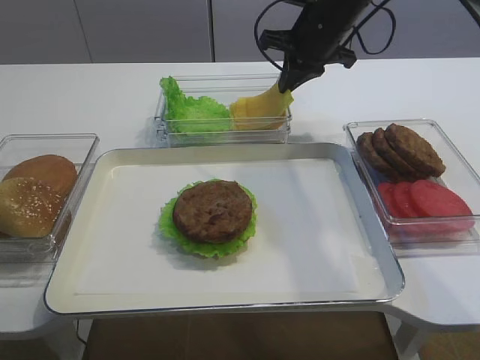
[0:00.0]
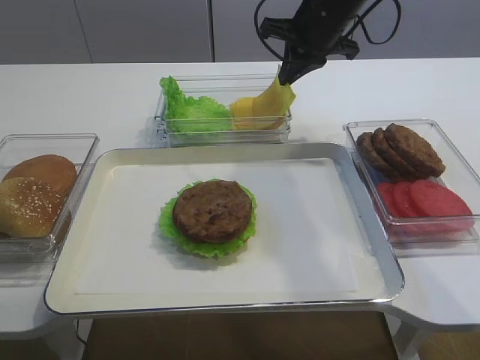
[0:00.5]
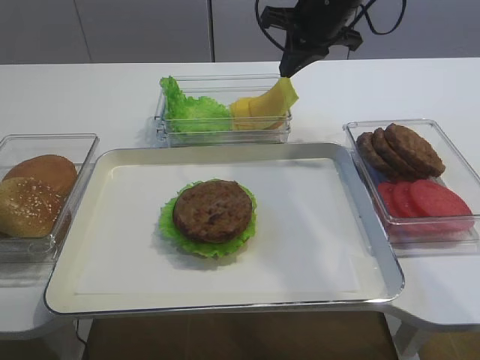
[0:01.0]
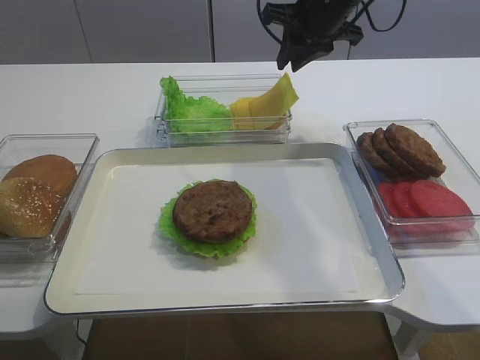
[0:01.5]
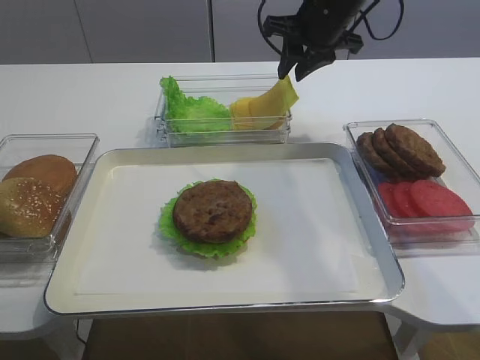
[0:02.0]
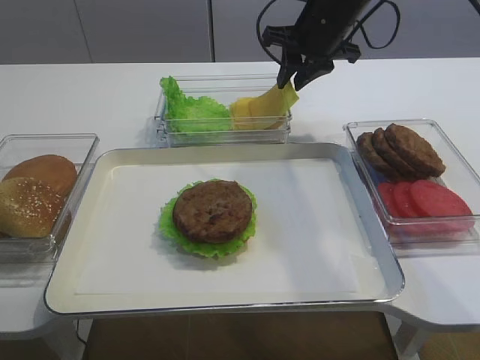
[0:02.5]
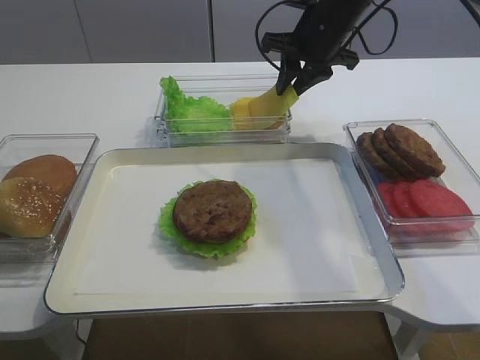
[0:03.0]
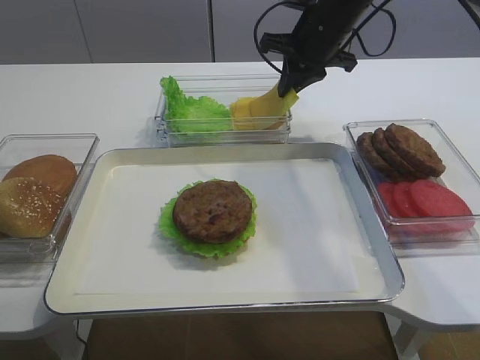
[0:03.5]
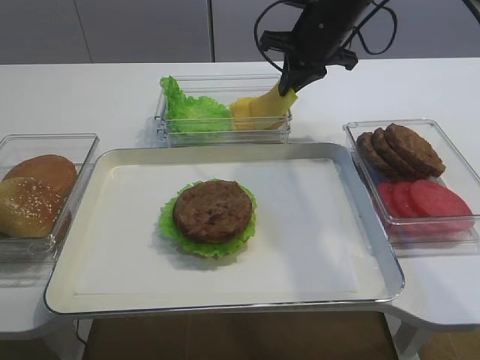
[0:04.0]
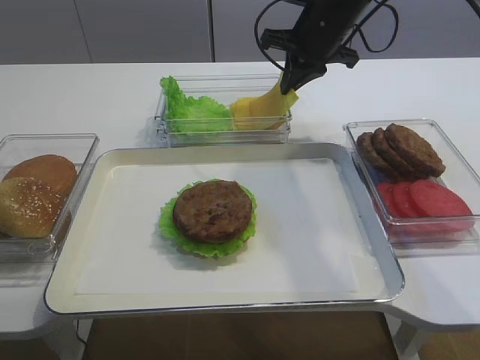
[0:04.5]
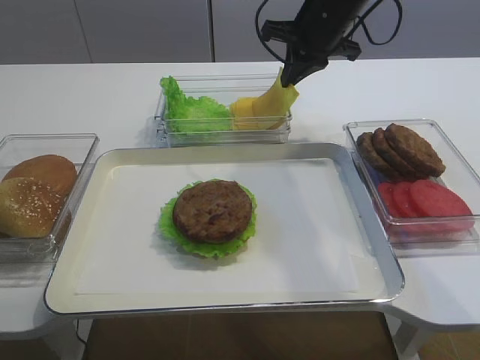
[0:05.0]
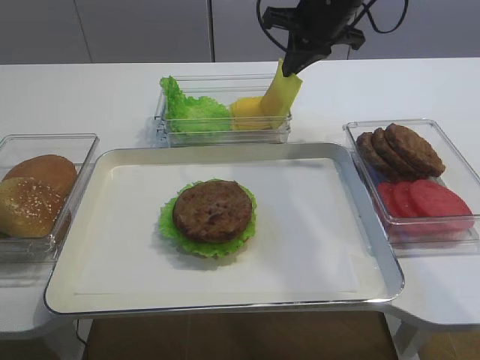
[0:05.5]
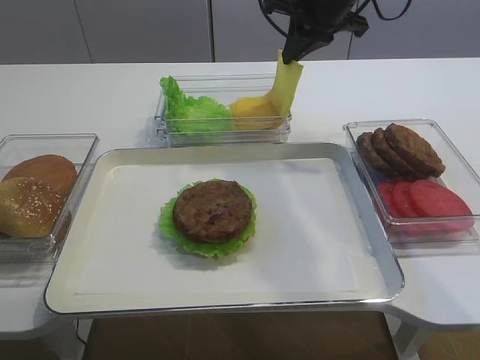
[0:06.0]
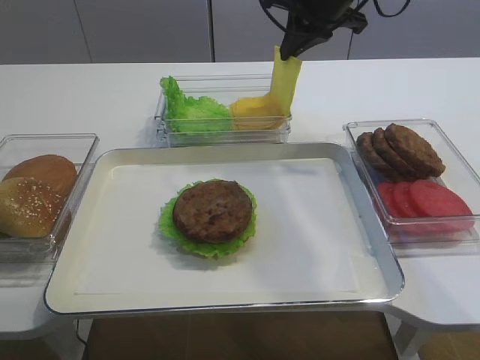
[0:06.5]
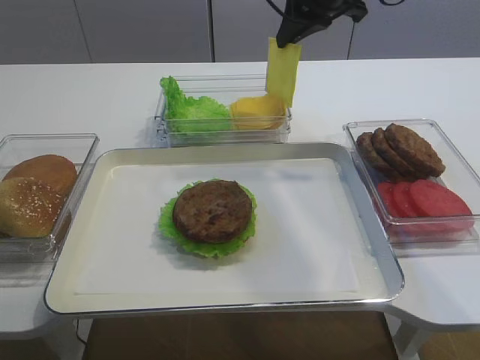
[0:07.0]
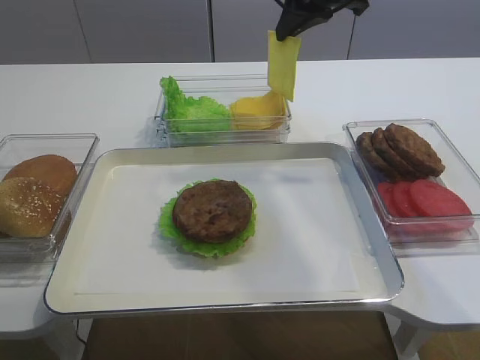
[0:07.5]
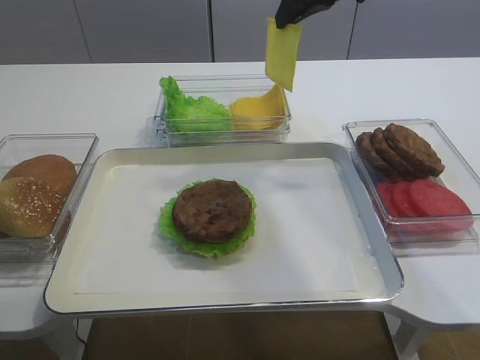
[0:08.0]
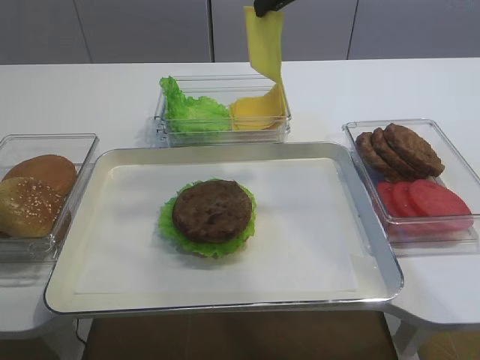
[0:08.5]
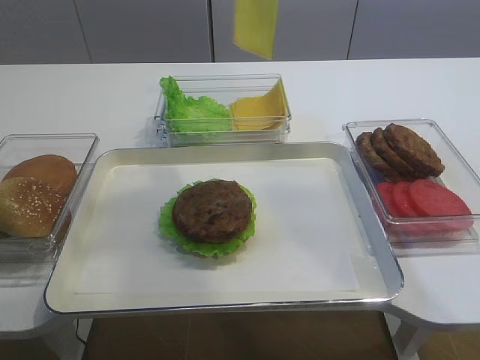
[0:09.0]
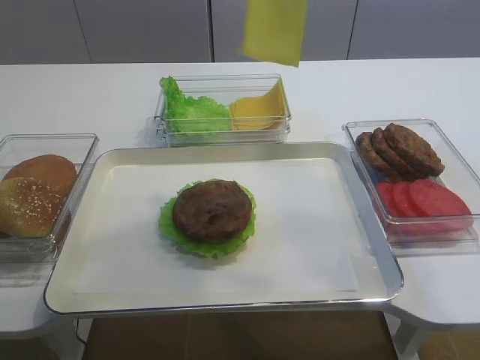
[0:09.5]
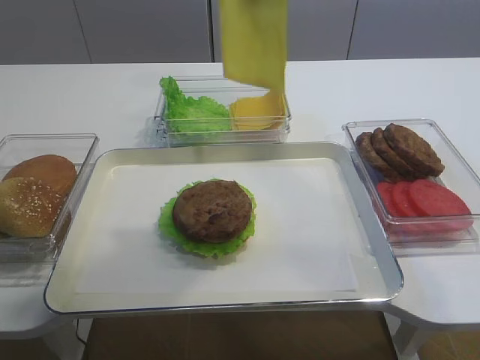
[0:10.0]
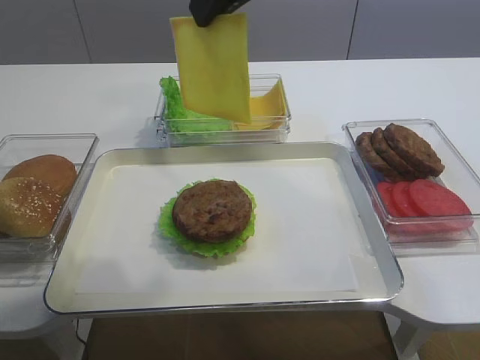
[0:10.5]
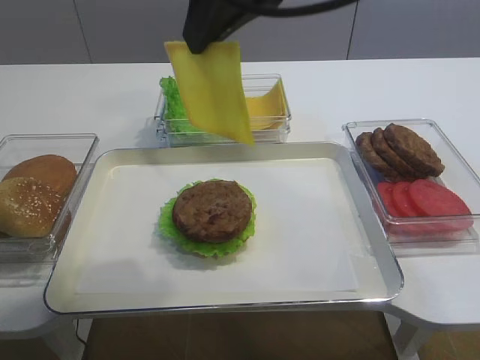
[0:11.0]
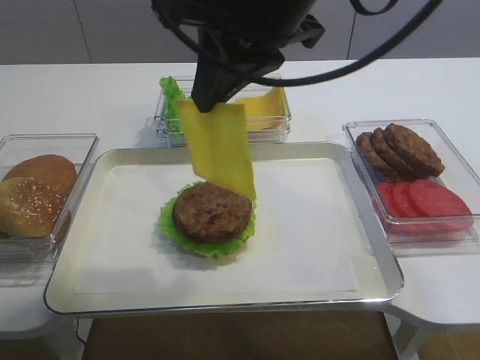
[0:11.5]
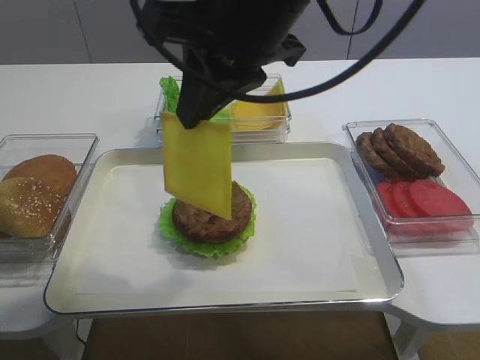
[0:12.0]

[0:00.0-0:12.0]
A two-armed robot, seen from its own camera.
Step, 0:00.0 to 0:08.0: Pick up the cheese slice with the right gripper.
0:00.0 to 0:02.0: The right gripper opens up.
0:02.0 to 0:04.0: The right gripper closes its fingers.
0:04.0 to 0:06.0: The right gripper shifts approximately 5 cm upward.
0:06.0 to 0:08.0: The right gripper changes place by about 5 cm.
0:08.0 to 0:10.0: The right gripper goes roughly 15 cm backward and upward.
0:10.0 to 0:12.0: The right gripper shifts about 10 cm downward and to the left.

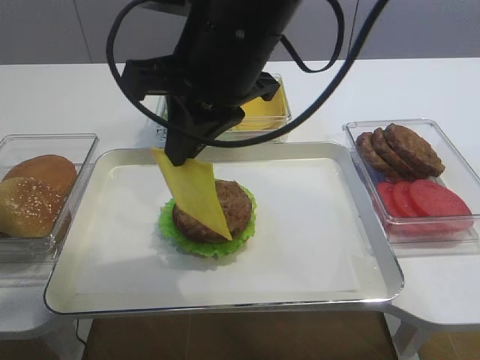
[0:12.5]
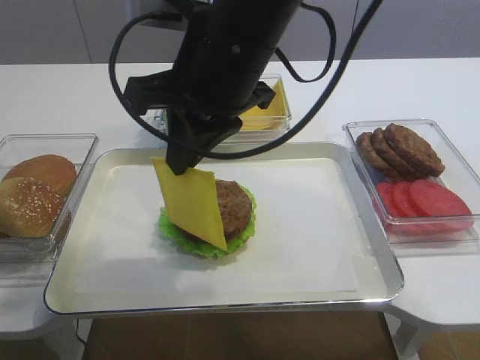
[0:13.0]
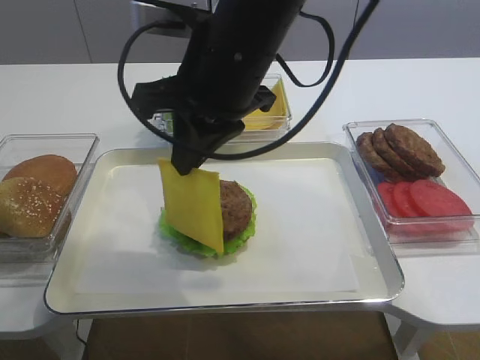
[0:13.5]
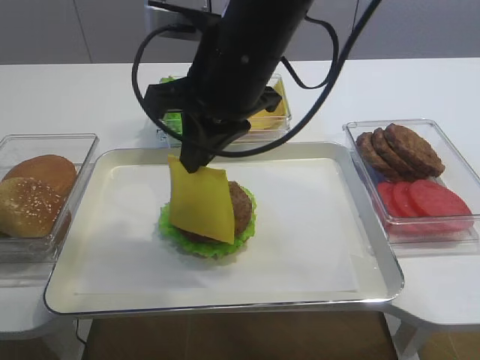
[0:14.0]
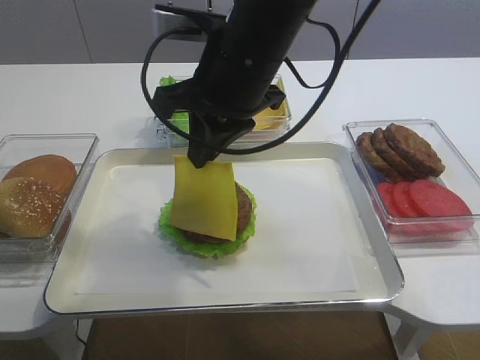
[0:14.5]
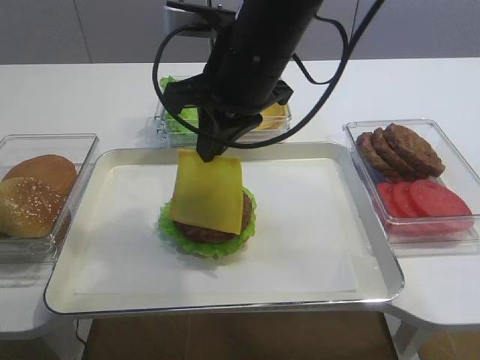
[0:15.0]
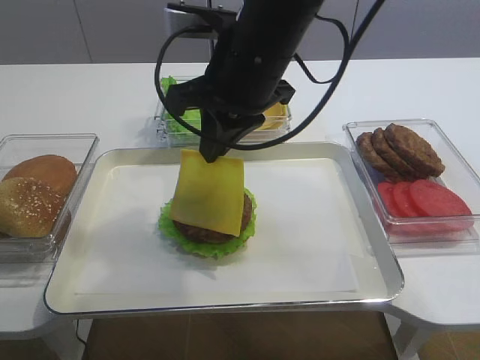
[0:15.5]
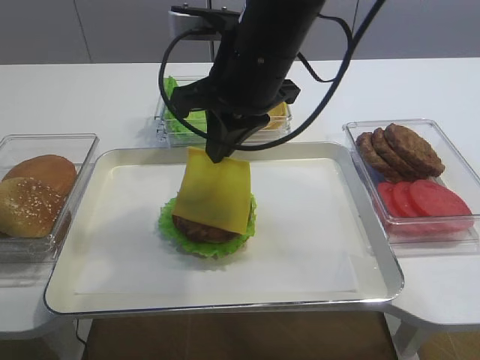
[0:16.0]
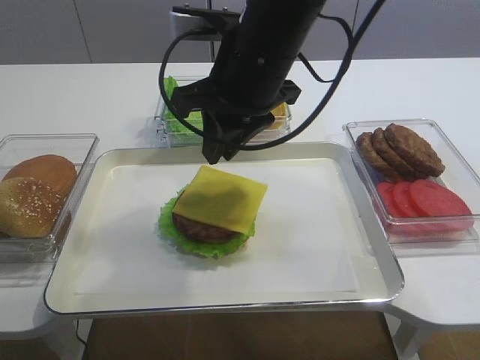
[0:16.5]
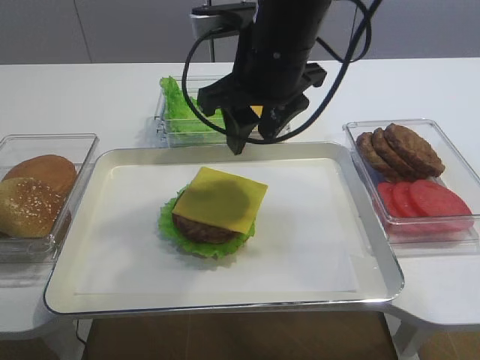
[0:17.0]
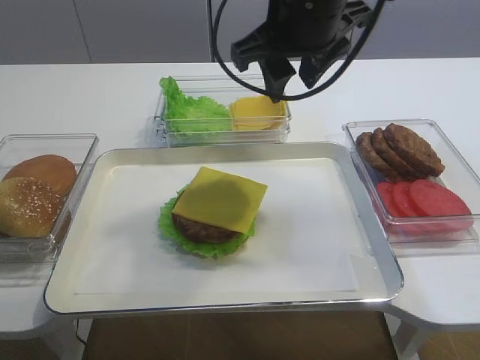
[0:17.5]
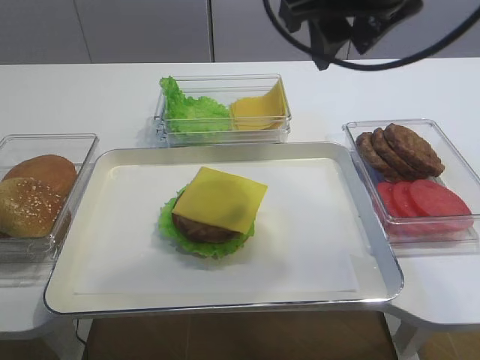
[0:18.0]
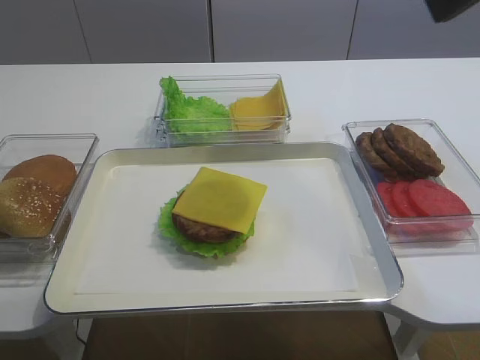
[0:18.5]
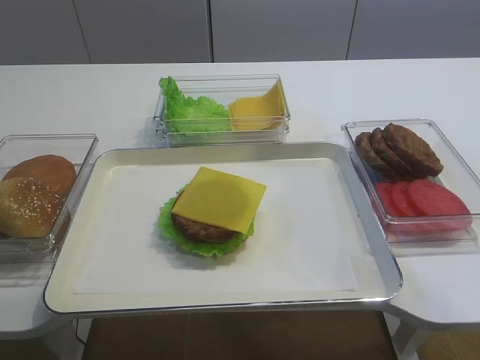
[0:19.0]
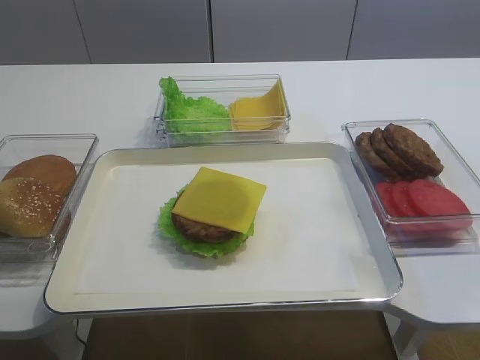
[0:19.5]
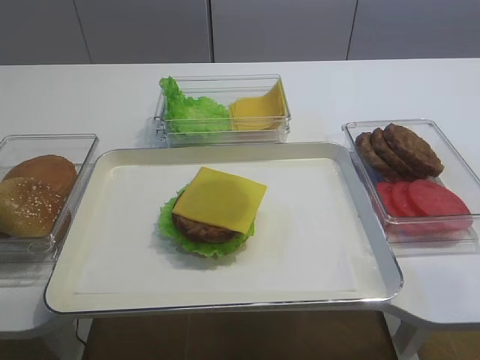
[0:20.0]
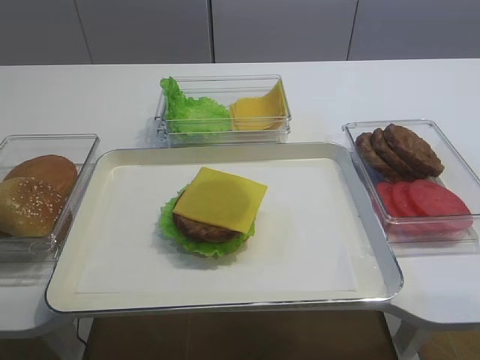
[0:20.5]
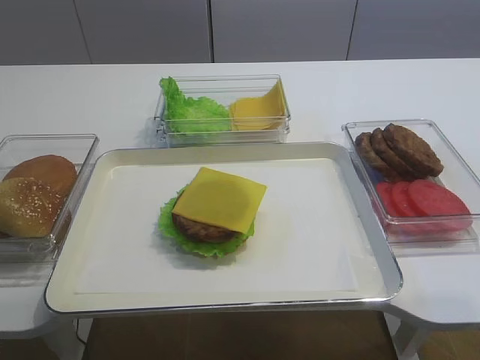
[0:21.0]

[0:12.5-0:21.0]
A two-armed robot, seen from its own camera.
Step, 0:12.5 to 0:16.0: Place the cheese slice on the cutlet with the right gripper.
0:12.5 to 0:14.5: There are only small adjustments of the grippers.
0:14.5 to 0:16.5: Both grippers stay about where they are.
0:16.5 to 0:19.0: The right gripper shifts approximately 30 cm to the right, backward and upward, and opens up.

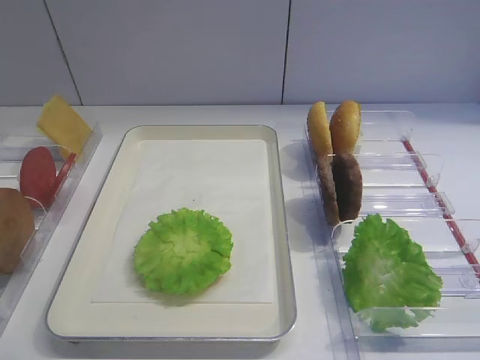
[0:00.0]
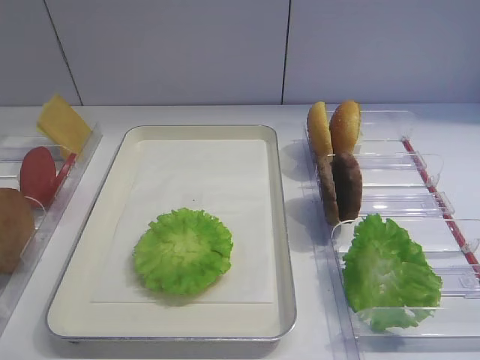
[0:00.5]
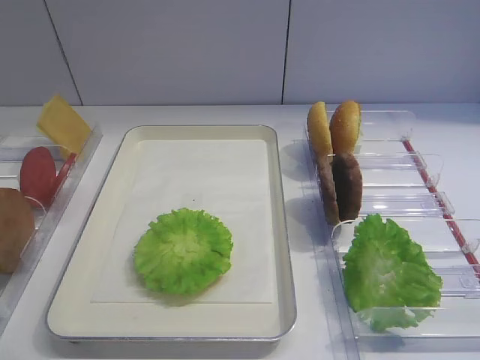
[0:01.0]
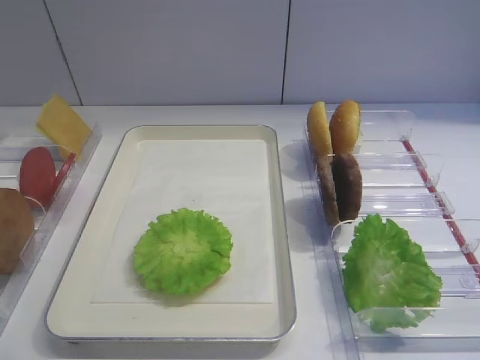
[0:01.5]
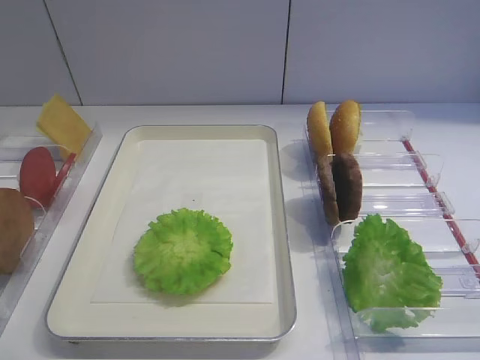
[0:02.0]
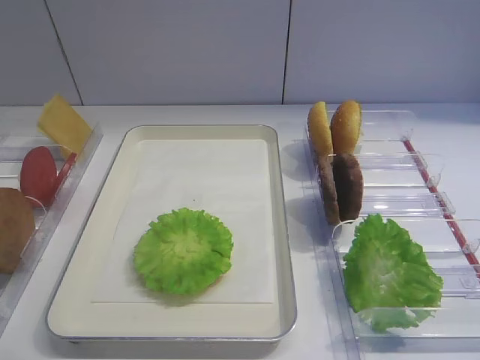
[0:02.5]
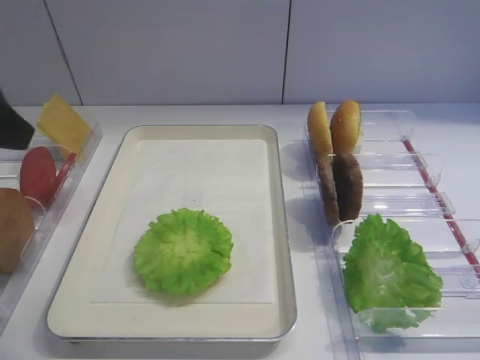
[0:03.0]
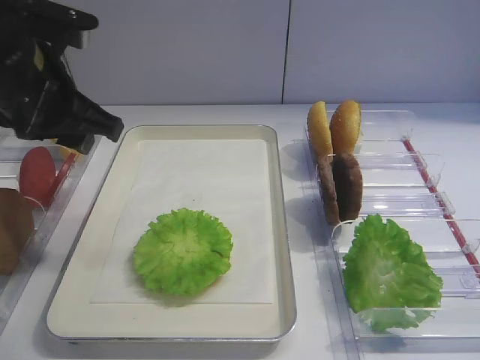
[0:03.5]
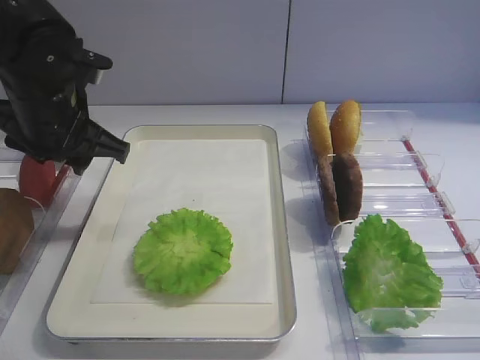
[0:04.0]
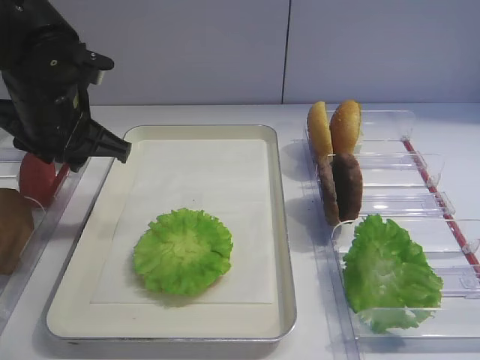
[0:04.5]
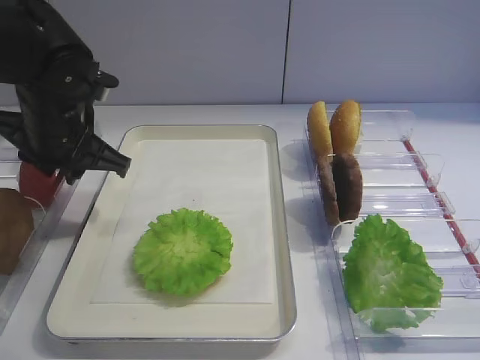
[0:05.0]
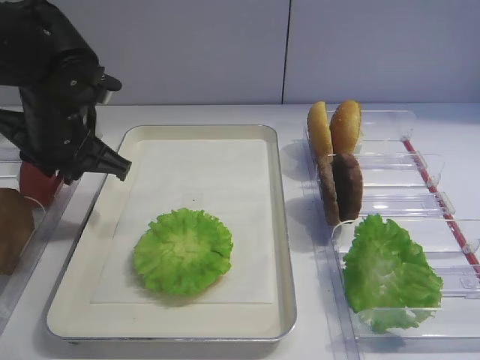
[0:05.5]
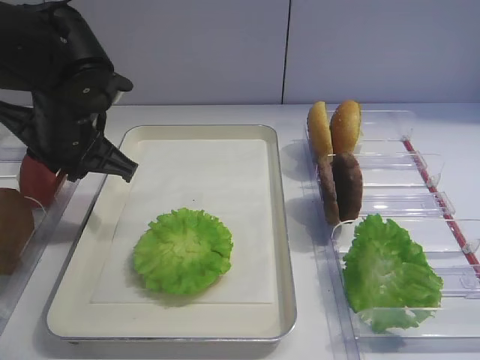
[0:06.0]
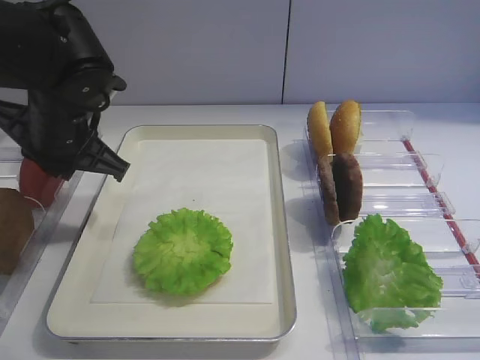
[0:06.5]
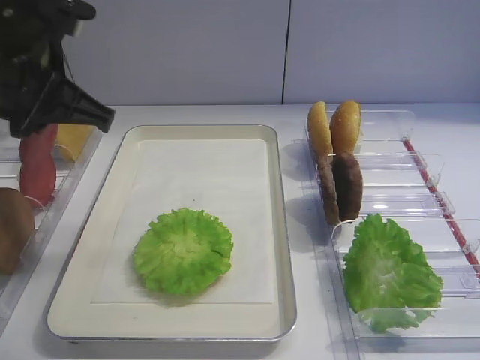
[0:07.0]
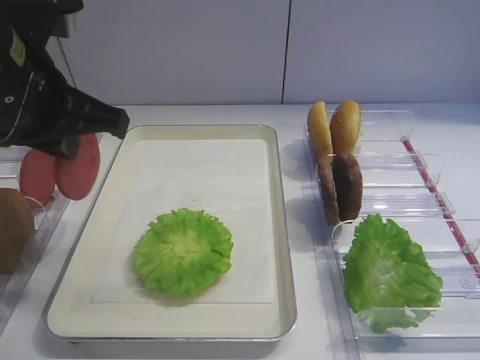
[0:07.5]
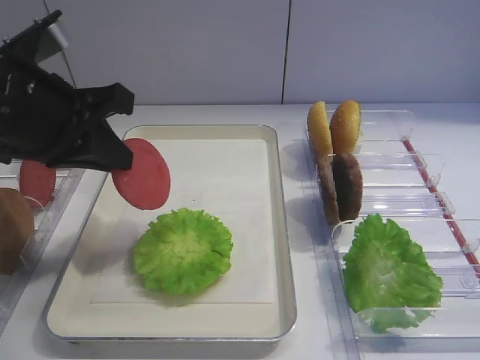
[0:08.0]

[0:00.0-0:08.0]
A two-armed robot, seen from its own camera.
Step, 0:00.0 to 0:07.0: Pick up the tomato slice with the left gripper.
0:02.0 to 0:04.0: The left gripper shifts roughly 35 cm forward.
0:04.0 to 0:06.0: There are only small adjustments of the grippers.
0:06.0 to 0:08.0: The left gripper is displaced backward and upward by about 10 cm.
